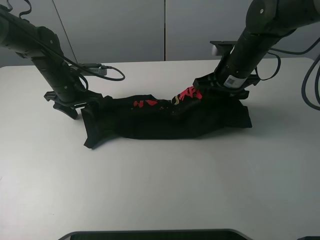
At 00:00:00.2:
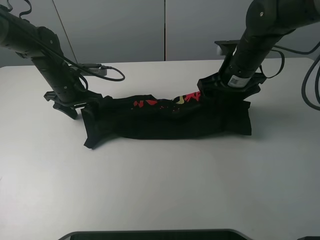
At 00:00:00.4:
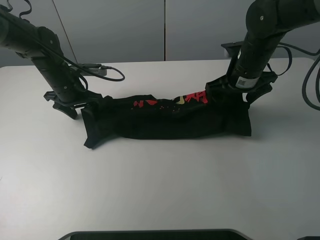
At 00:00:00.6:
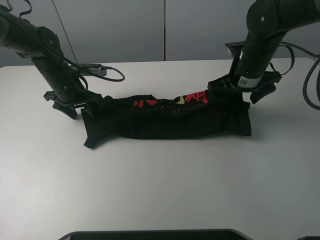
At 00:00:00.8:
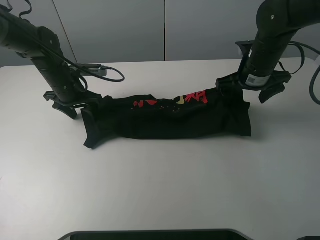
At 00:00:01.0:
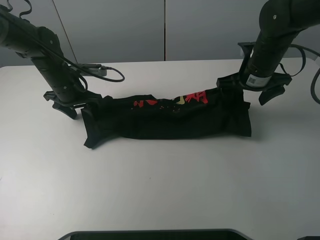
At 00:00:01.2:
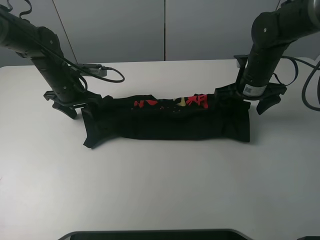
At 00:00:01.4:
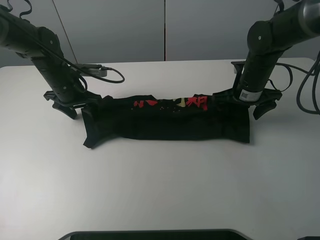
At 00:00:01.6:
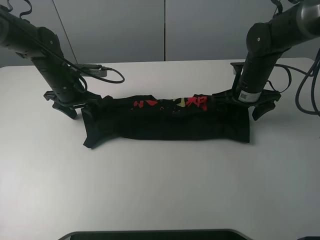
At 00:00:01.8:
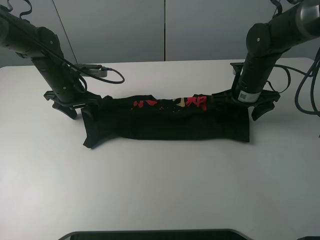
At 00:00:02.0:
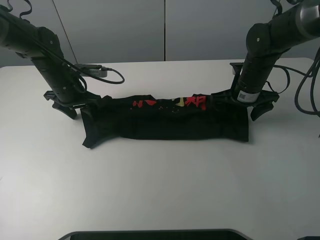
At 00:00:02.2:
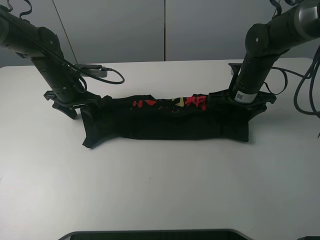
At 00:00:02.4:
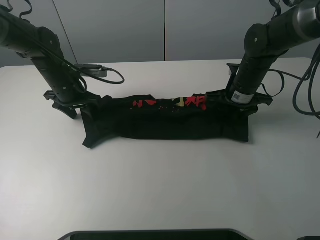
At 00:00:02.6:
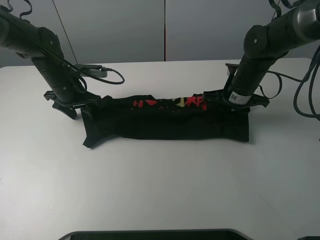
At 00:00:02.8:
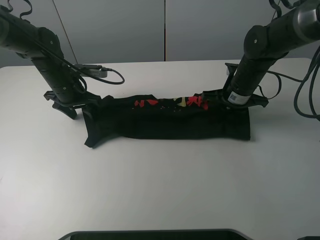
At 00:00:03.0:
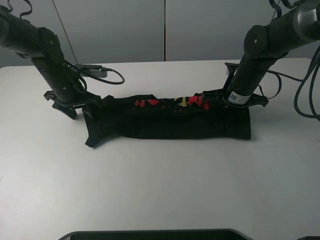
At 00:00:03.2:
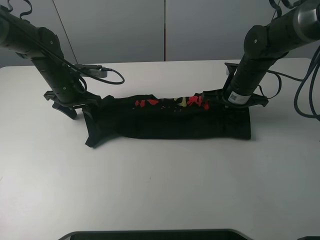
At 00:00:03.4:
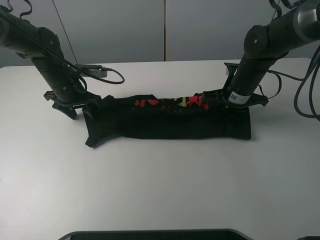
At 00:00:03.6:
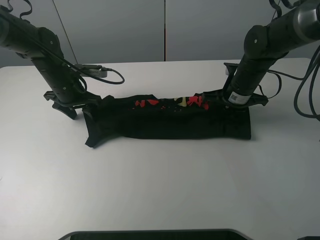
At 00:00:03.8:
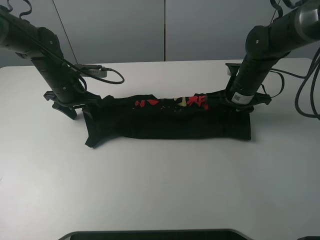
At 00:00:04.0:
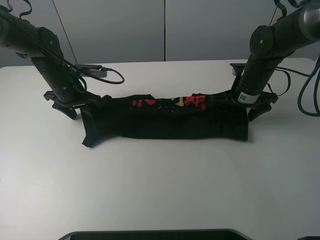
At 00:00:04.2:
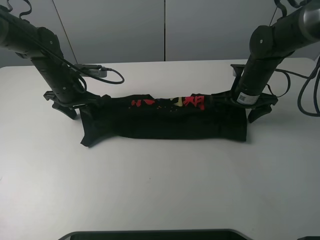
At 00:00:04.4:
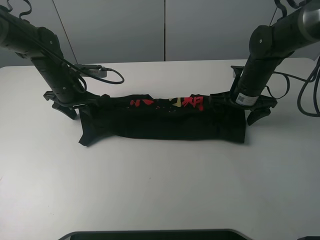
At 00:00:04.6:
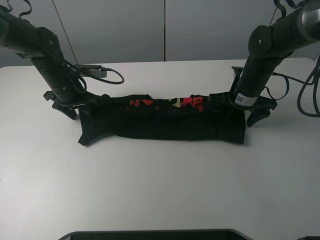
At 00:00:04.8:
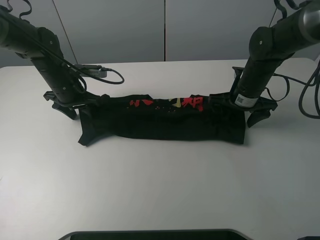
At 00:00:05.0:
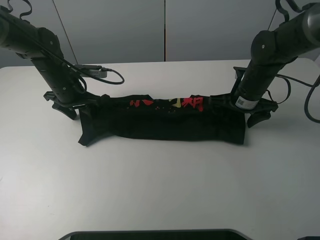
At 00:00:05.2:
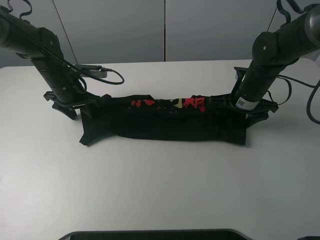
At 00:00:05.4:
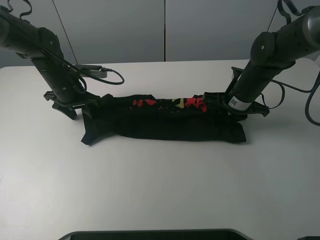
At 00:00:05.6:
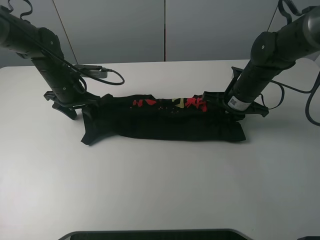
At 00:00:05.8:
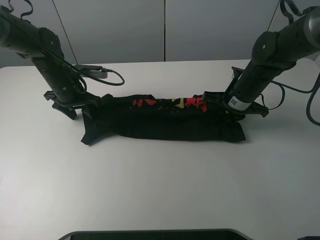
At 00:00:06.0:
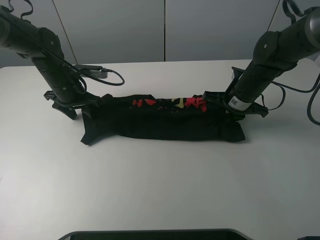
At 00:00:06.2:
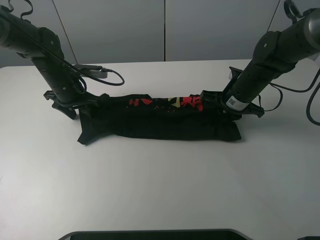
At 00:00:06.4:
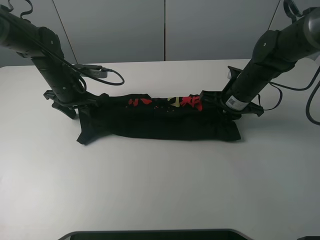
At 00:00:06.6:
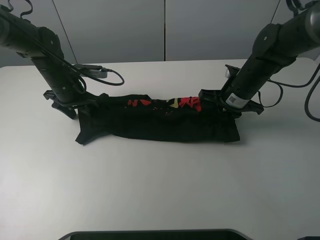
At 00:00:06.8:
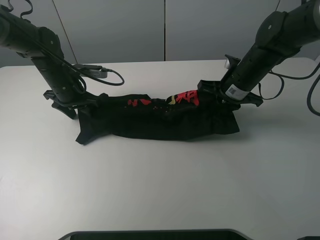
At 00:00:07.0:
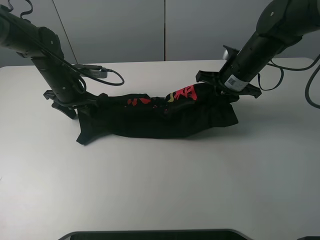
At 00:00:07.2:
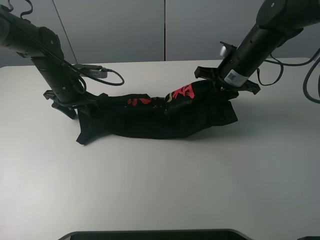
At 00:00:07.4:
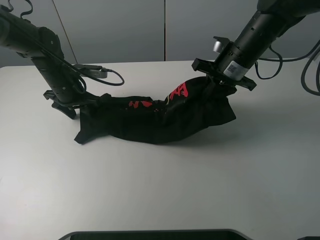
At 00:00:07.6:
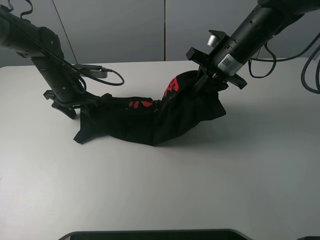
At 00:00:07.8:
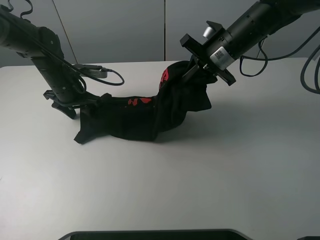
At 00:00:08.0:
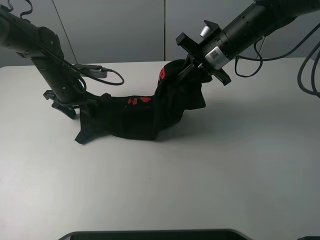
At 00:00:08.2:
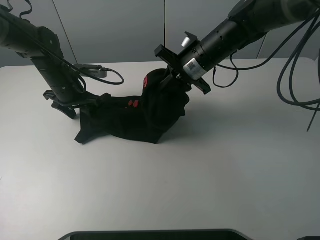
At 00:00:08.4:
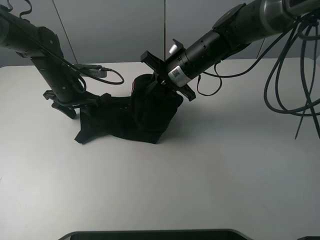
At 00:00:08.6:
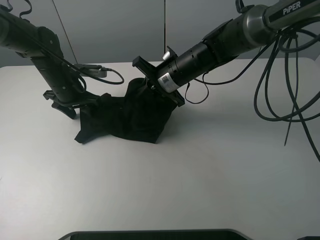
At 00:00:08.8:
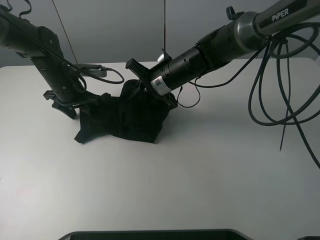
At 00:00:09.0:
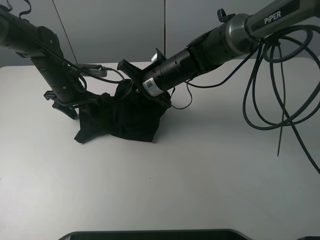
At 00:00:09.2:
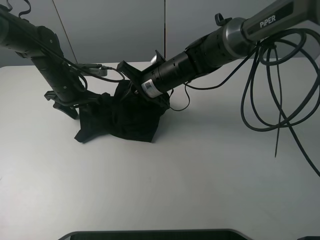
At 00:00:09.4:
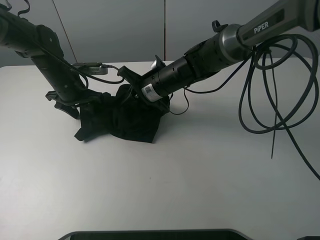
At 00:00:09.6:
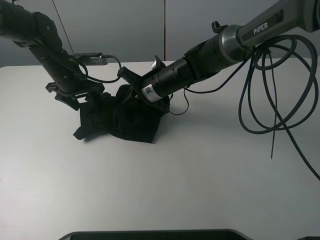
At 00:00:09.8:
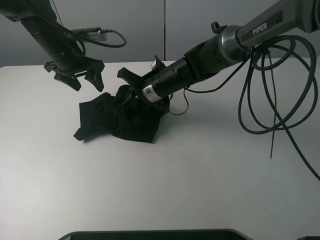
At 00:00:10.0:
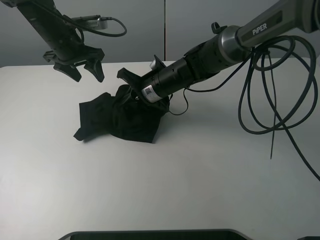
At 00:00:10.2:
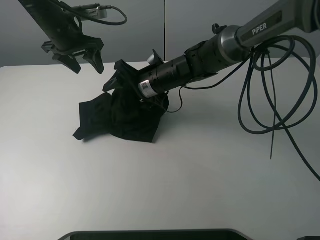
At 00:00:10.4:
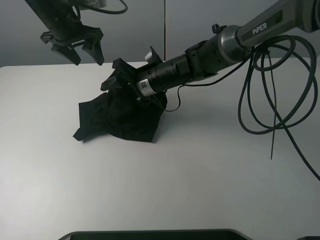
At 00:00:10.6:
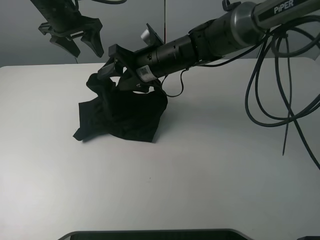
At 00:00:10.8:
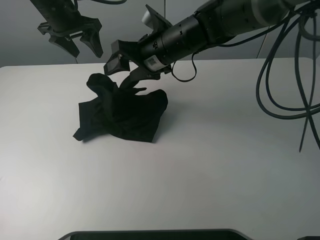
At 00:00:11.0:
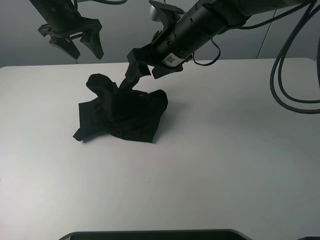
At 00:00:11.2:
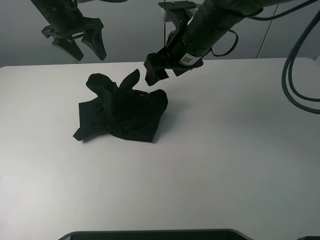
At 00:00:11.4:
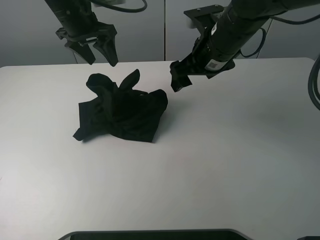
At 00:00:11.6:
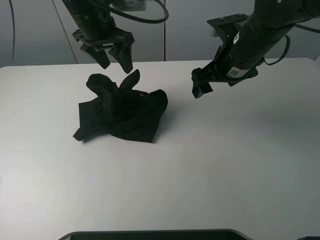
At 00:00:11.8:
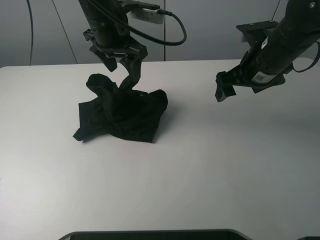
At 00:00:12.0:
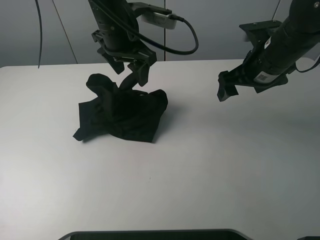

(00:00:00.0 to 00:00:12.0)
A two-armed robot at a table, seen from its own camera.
Task of the whole recording: fold the clothes on the table.
Step, 00:00:00.0 - 00:00:05.6: Grasp the black T-shirt with the right gripper.
Step, 00:00:05.8 - 00:00:11.2: Fold the black T-shirt from right to left with right gripper.
00:00:00.0 - 00:00:01.6: The right gripper travels downward by some 5 cm.
00:00:01.6 - 00:00:03.0: The right gripper closes its fingers.
00:00:03.0 - 00:00:04.4: The right gripper opens its fingers.
00:00:04.4 - 00:00:06.0: The right gripper closes its fingers.
00:00:06.0 - 00:00:07.6: The right gripper moves upward, about 10 cm.
00:00:07.6 - 00:00:09.0: The right gripper travels to the left and downward by roughly 15 cm.
00:00:09.0 - 00:00:10.4: The left gripper goes some 15 cm upward, while the right gripper opens its fingers.
00:00:10.4 - 00:00:12.0: The left gripper travels to the right and backward by approximately 15 cm; the right gripper goes approximately 20 cm to the right and upward.

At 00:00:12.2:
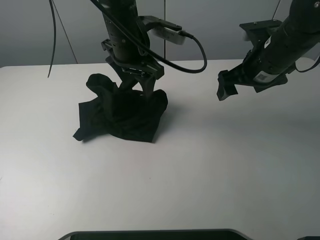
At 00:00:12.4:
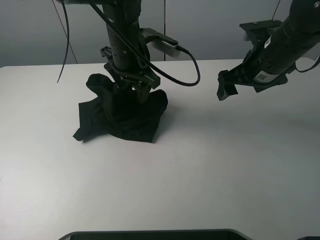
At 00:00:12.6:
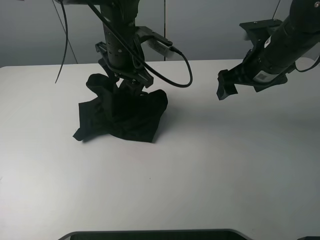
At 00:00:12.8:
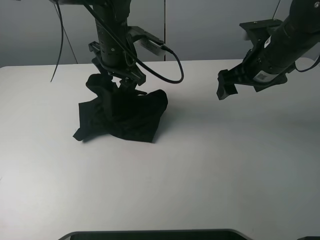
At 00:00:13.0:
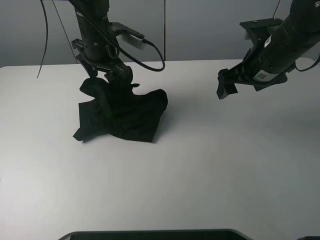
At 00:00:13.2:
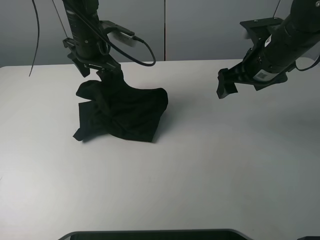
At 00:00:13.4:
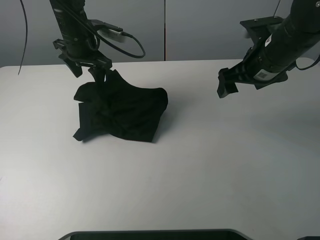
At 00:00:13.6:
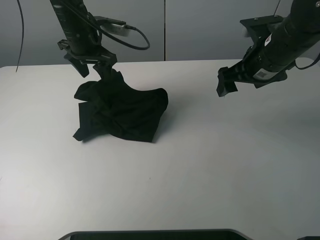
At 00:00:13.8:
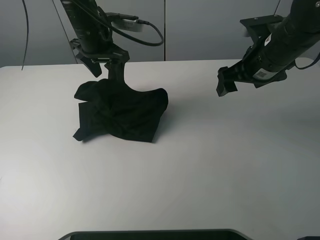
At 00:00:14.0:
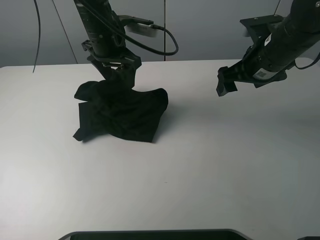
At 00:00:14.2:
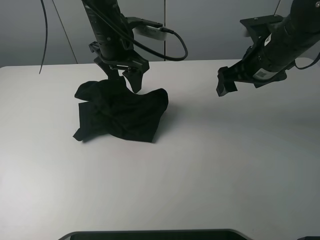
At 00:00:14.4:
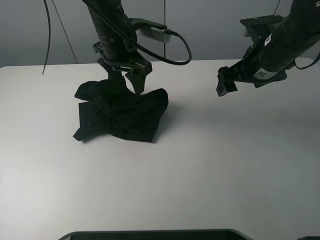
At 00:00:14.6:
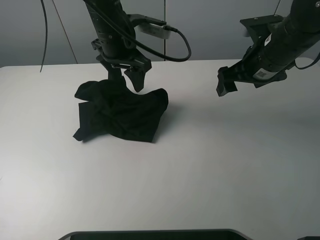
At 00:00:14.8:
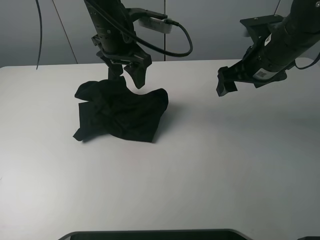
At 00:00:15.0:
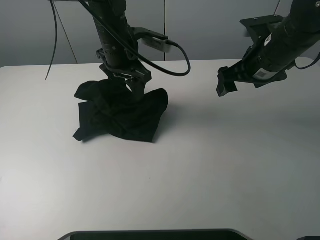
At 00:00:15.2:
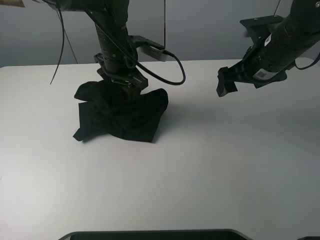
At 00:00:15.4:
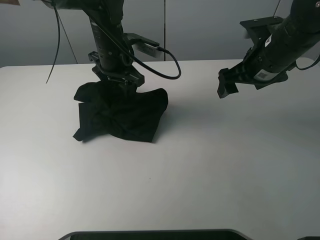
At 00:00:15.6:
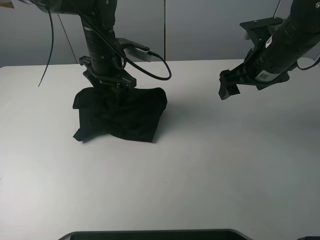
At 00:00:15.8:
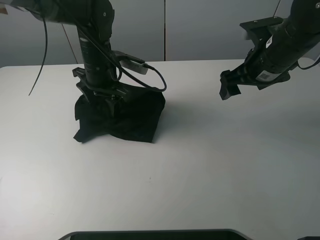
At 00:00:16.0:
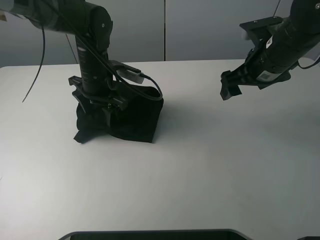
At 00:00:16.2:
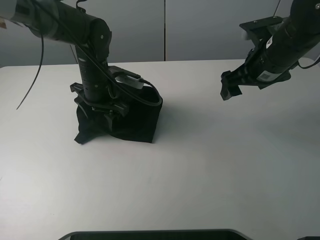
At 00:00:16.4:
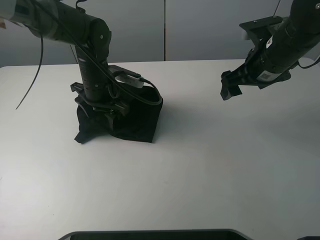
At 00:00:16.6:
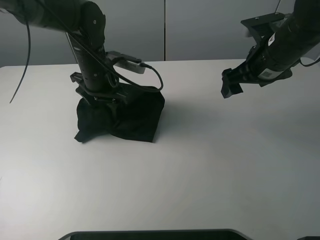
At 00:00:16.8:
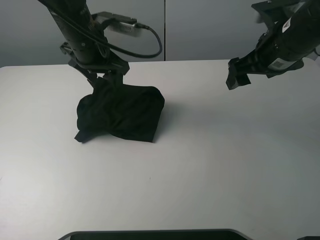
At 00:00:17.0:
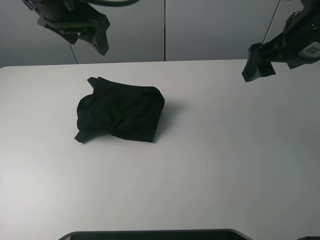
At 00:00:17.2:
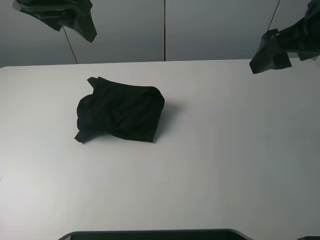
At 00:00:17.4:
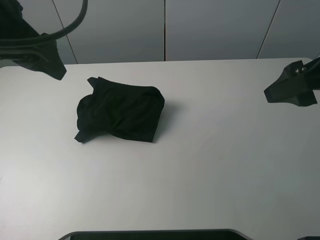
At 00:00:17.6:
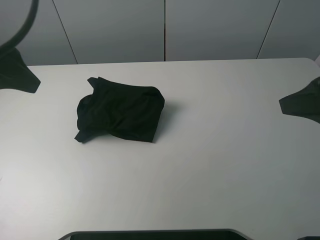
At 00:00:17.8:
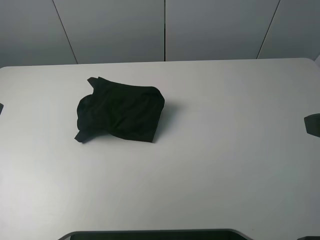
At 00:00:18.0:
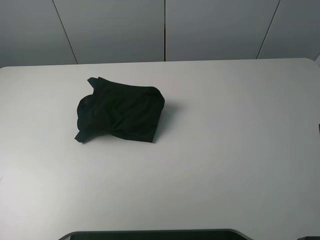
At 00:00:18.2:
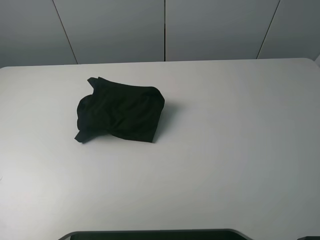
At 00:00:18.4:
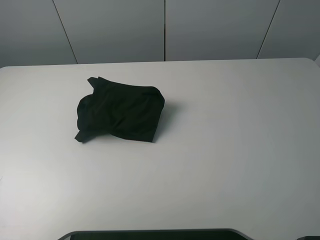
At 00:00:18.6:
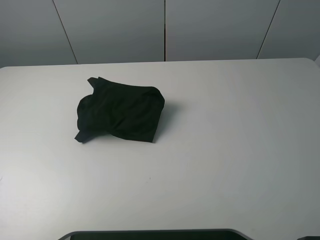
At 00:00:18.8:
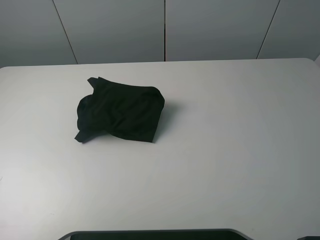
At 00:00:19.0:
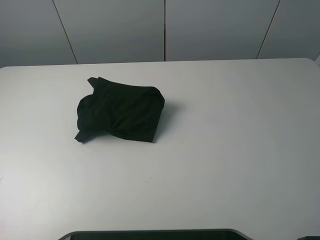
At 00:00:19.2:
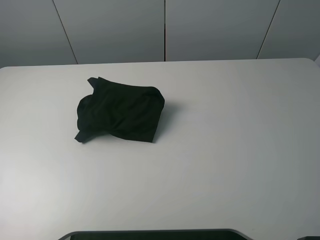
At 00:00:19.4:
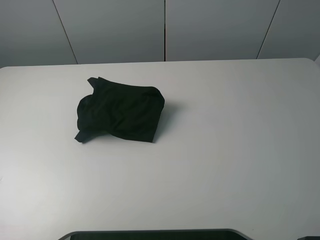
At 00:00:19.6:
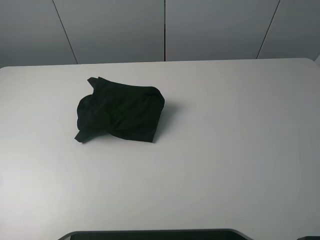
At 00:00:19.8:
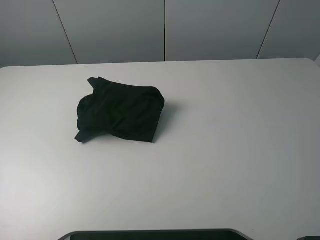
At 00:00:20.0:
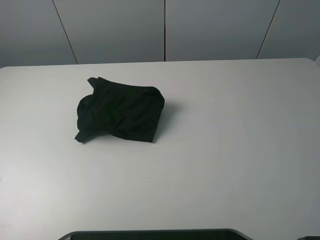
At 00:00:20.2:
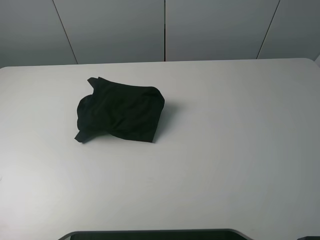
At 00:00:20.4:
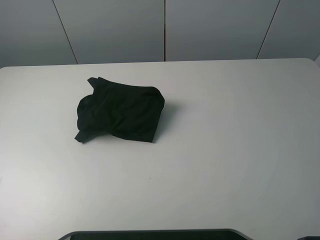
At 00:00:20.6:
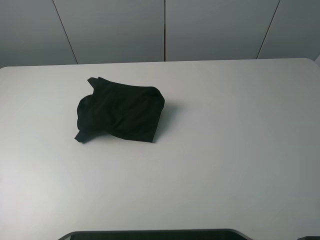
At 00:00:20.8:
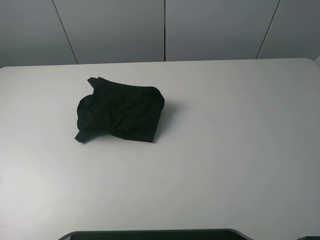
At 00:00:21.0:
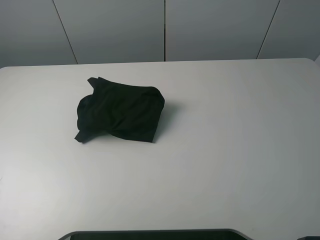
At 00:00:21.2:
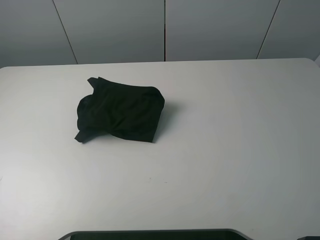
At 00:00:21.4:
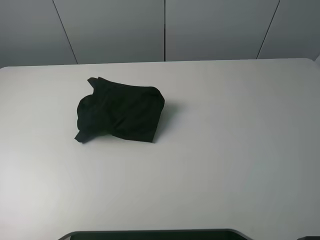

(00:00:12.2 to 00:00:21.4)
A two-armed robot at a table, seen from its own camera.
Task of the whole recording: fold the clothes on the table.
Step, 00:00:12.2 - 00:00:16.8: Use the left gripper to tidy up the clothes.
00:00:12.2 - 00:00:13.8: The left gripper is displaced to the left and forward by approximately 10 cm.
00:00:13.8 - 00:00:15.2: The left gripper changes place by about 5 cm.
00:00:15.2 - 00:00:16.8: The left gripper heads upward and to the left, covering some 10 cm.
00:00:16.8 - 00:00:18.4: The right gripper travels backward by approximately 25 cm. Meanwhile the left gripper is displaced backward and to the left by some 35 cm.
